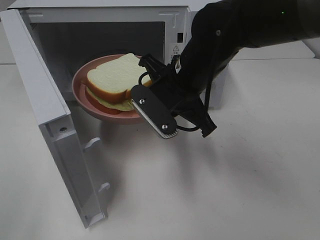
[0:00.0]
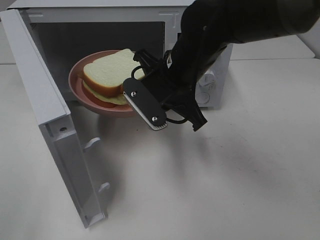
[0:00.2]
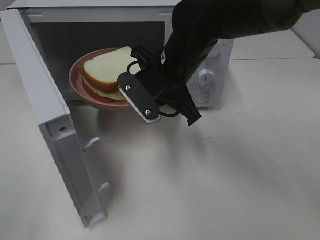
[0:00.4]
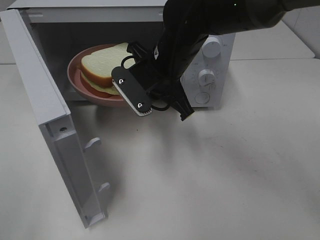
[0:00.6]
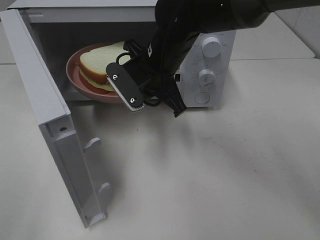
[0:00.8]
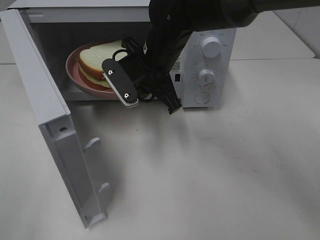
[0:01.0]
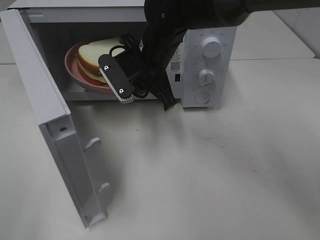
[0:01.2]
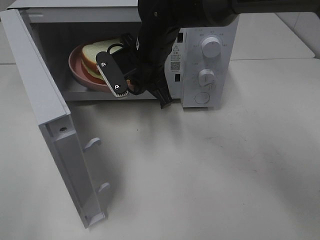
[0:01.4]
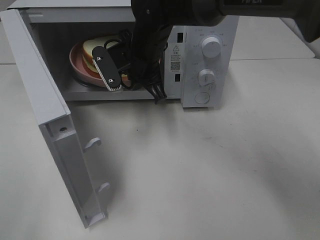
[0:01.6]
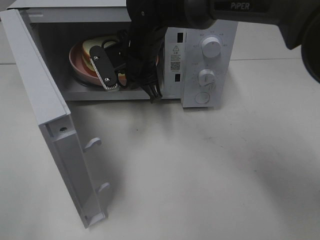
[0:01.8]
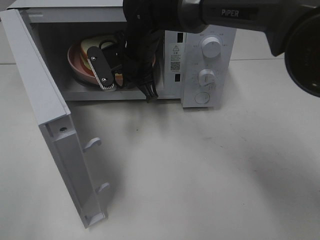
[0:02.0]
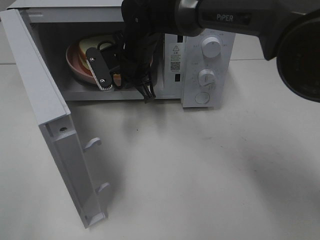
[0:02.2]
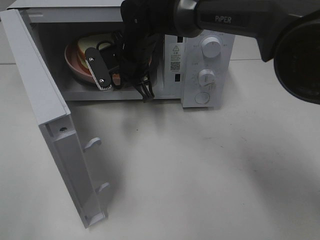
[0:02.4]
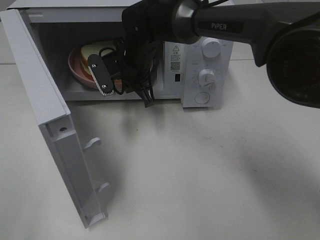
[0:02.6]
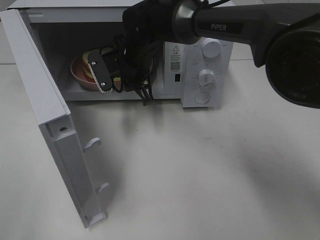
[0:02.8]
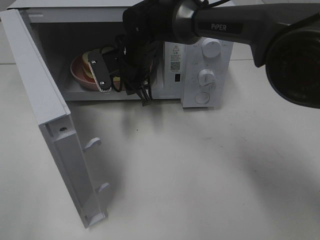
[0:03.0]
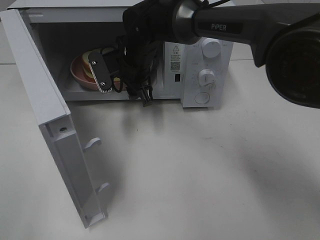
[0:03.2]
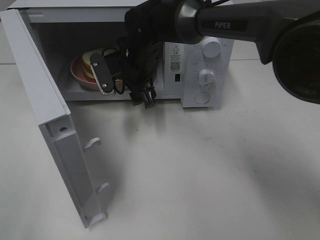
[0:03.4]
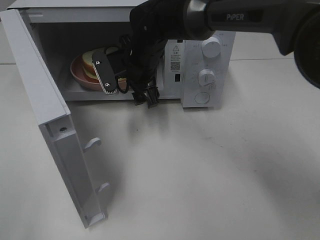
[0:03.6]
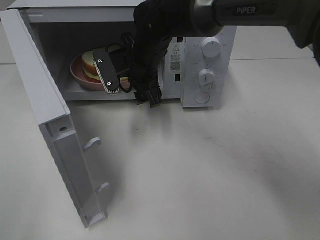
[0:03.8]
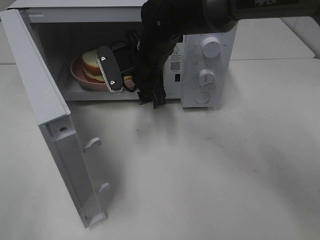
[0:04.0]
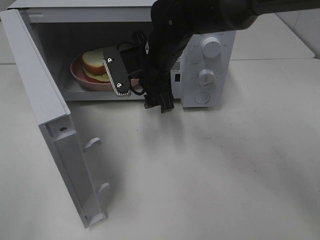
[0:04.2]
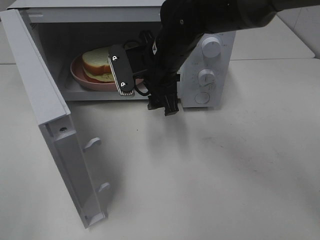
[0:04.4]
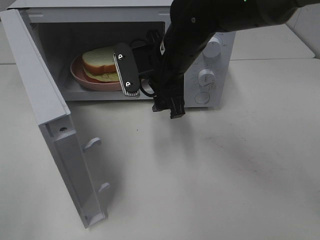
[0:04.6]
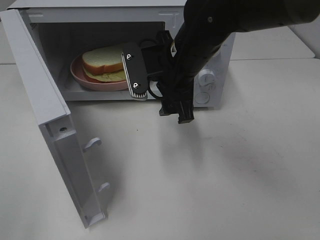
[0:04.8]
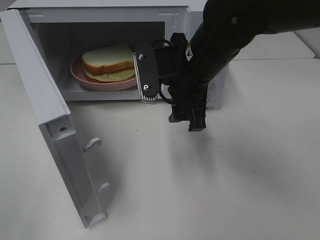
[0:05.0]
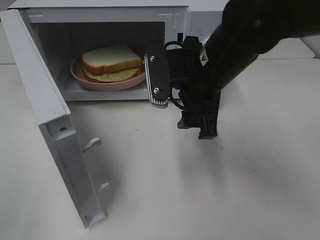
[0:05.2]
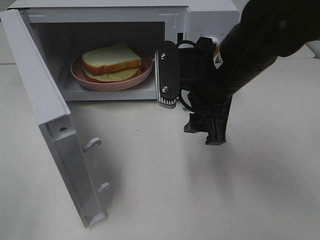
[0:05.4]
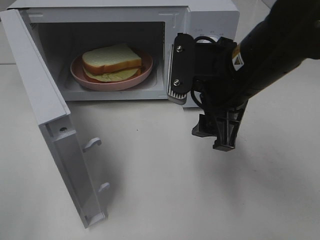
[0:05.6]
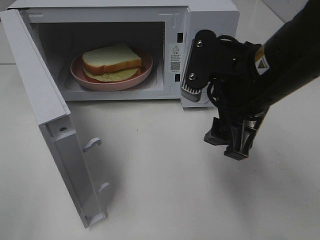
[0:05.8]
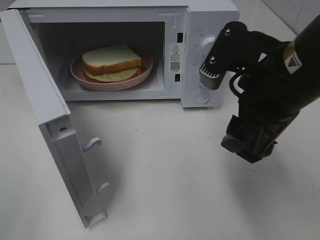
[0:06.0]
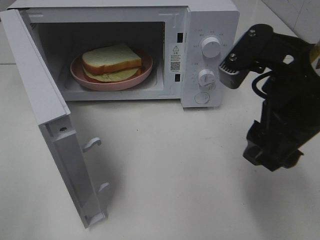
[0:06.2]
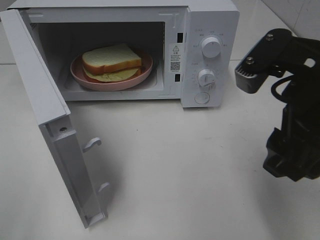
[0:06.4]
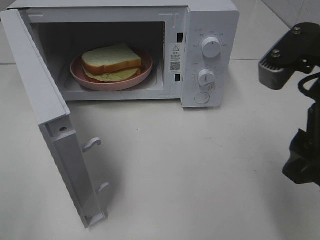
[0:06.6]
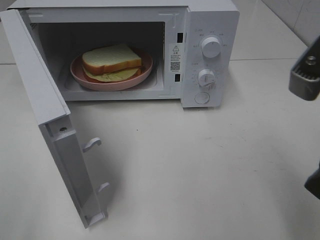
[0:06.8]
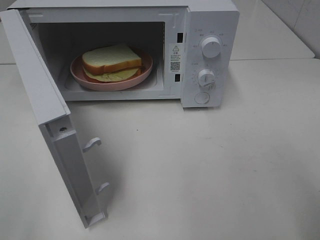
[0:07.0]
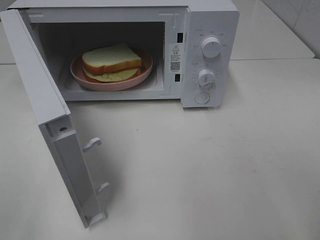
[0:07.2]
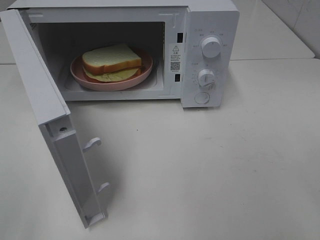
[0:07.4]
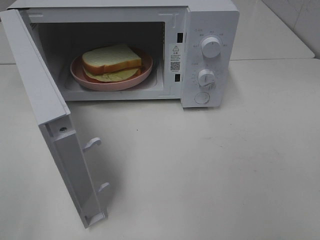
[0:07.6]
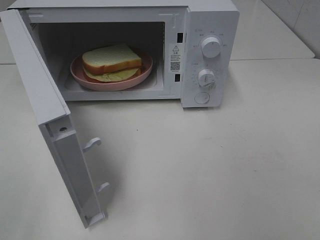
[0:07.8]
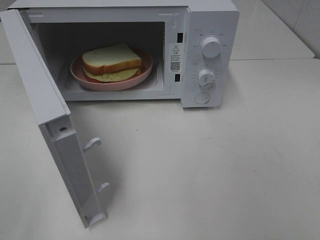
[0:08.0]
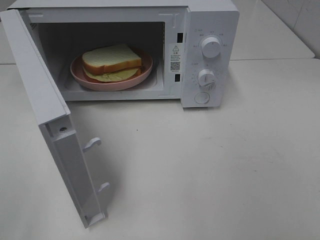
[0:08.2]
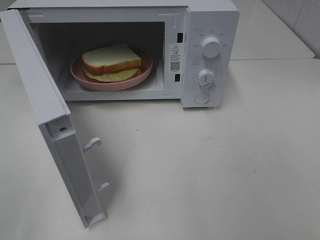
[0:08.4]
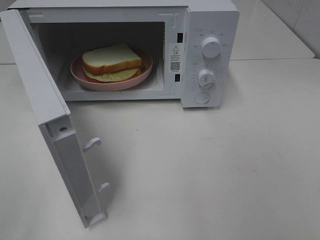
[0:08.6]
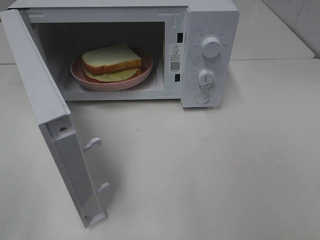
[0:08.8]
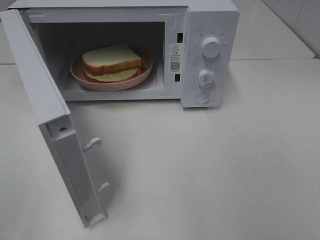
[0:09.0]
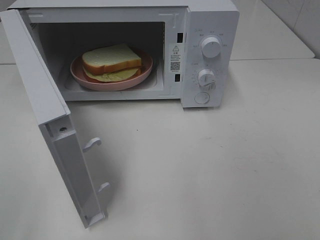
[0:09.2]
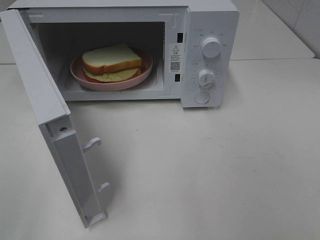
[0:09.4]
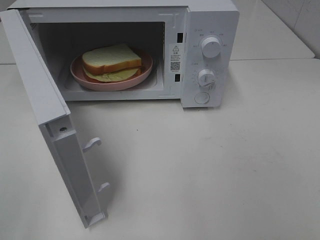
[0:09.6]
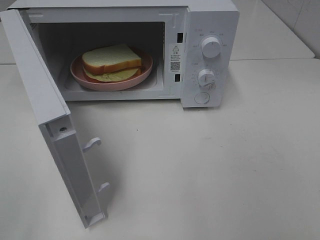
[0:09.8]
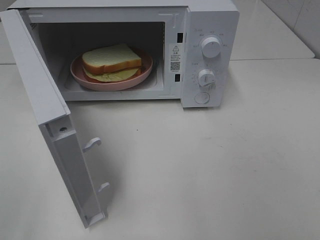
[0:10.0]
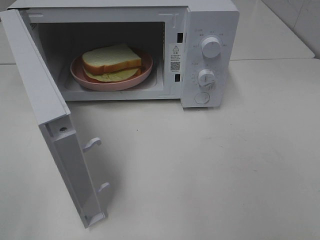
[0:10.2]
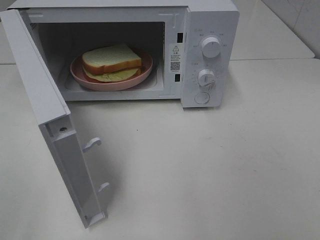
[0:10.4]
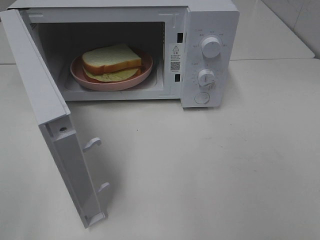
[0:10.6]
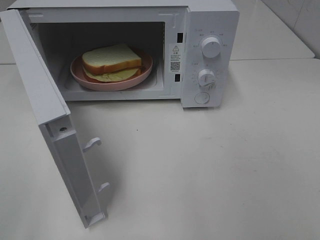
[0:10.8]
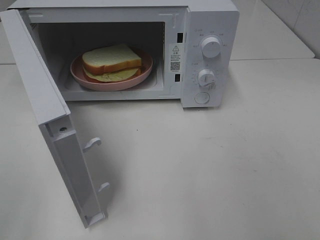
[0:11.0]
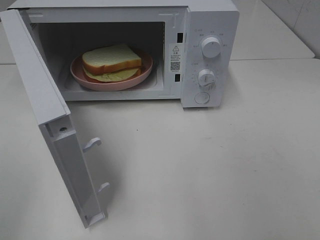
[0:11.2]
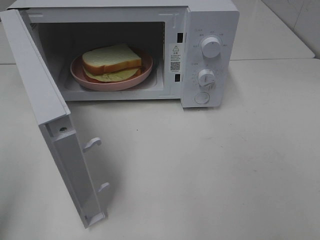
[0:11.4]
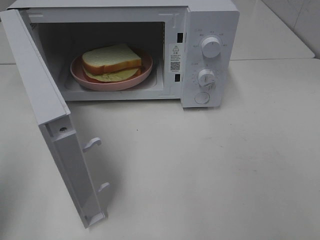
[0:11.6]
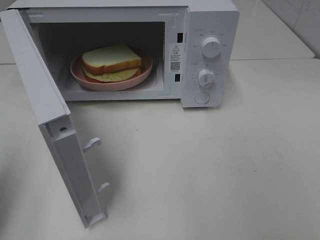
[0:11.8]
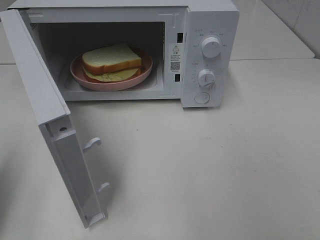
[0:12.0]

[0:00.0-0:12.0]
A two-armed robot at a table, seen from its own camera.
Task of the whole recording: Heat Sandwich.
Step, 0:00.0 to 0:03.8: Right hand: place the plate in the microwave.
0:00.0 to 0:01.6: The right gripper travels forward and to the left by about 10 cm.
0:01.6 to 0:03.0: The right gripper opens.
0:03.0 to 0:04.4: The right gripper travels backward and to the right by about 10 cm, and opens up.
0:04.4 to 0:06.0: The right gripper is displaced backward, to the right and upward by about 20 cm.
0:06.0 to 0:07.6: The right gripper goes approximately 20 cm backward and to the right.
0:09.0 to 0:10.4: Both grippers stay about where they are.
0:10.4 to 0:12.0: The left gripper travels forward by approximately 15 cm, and closes its fingers.

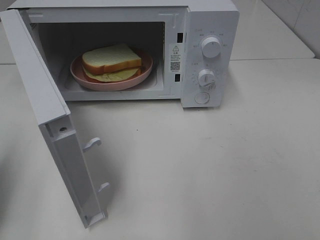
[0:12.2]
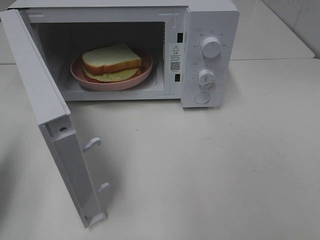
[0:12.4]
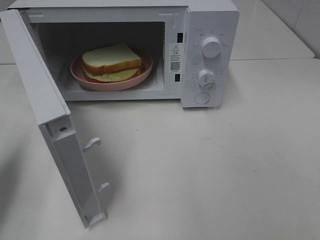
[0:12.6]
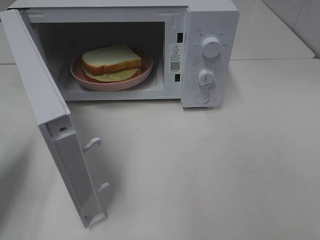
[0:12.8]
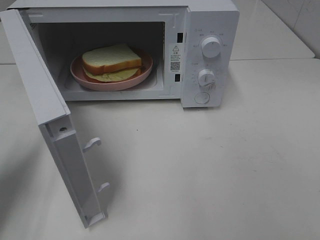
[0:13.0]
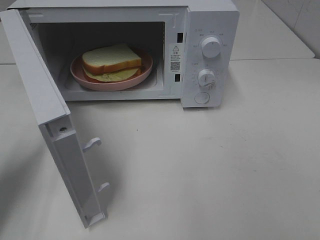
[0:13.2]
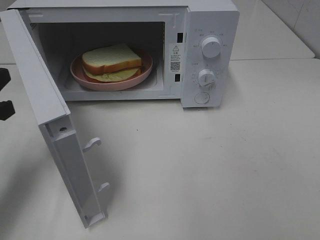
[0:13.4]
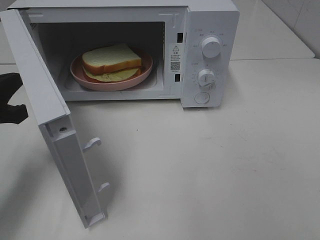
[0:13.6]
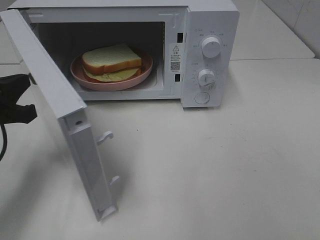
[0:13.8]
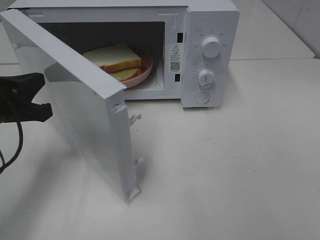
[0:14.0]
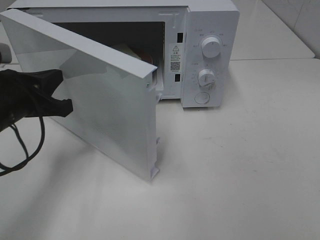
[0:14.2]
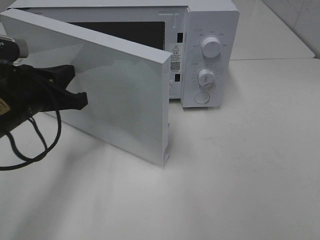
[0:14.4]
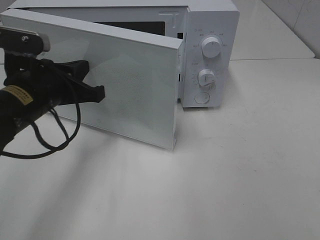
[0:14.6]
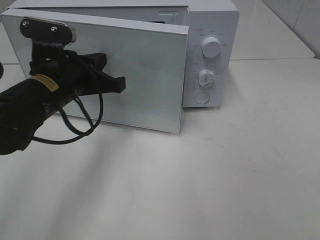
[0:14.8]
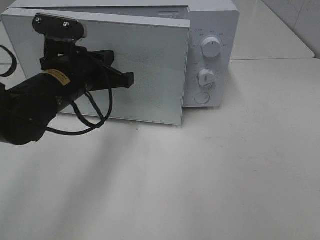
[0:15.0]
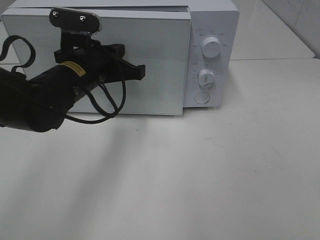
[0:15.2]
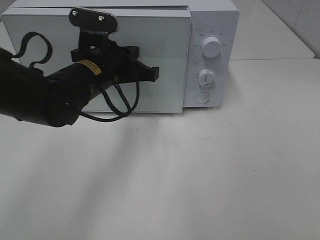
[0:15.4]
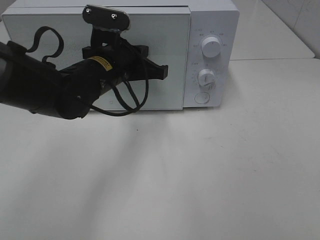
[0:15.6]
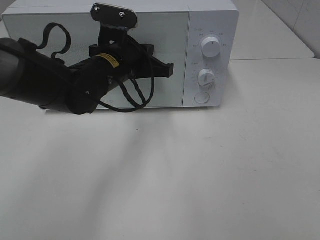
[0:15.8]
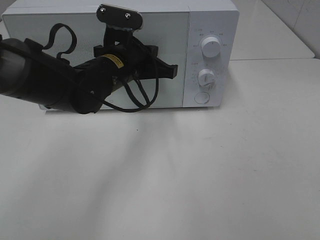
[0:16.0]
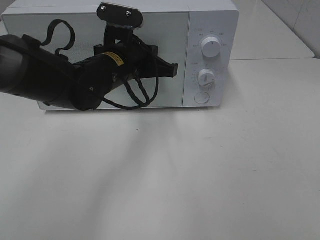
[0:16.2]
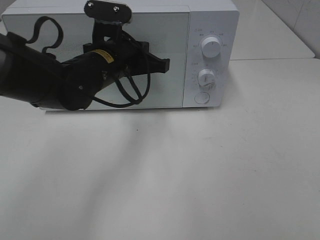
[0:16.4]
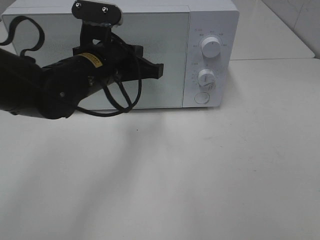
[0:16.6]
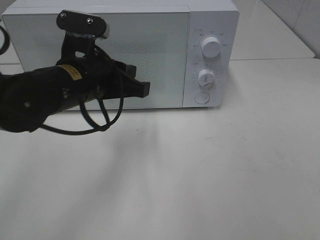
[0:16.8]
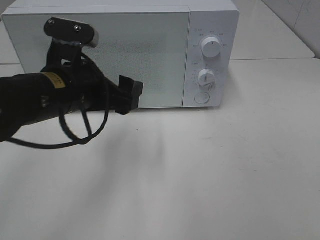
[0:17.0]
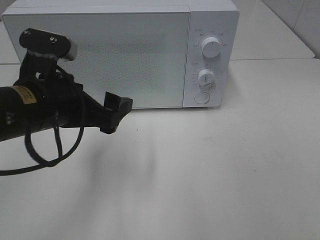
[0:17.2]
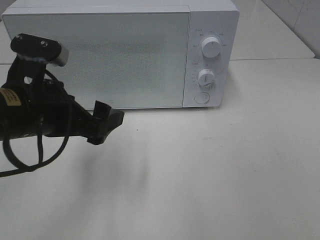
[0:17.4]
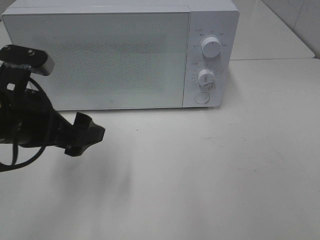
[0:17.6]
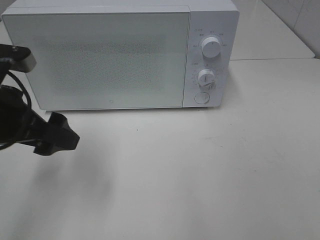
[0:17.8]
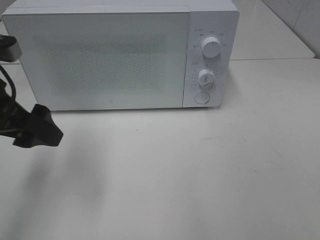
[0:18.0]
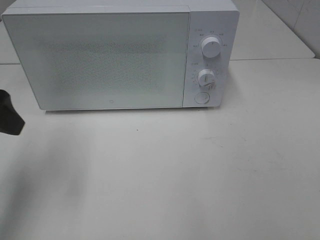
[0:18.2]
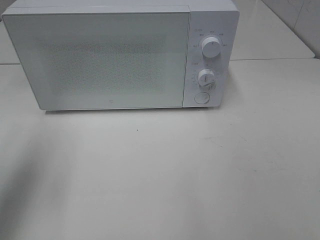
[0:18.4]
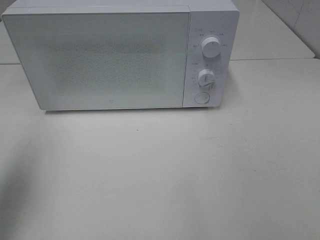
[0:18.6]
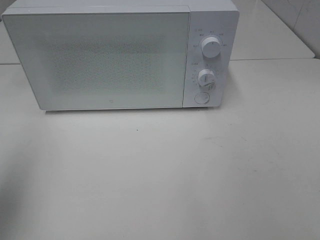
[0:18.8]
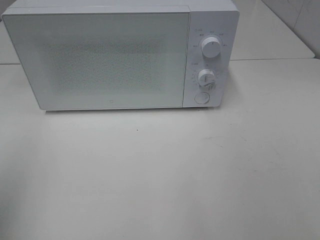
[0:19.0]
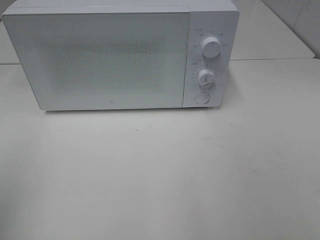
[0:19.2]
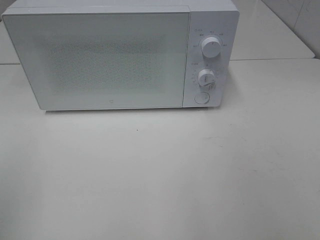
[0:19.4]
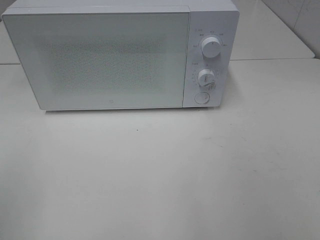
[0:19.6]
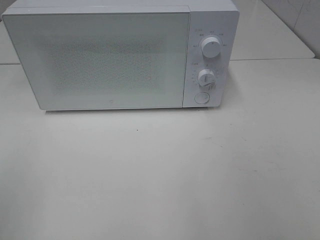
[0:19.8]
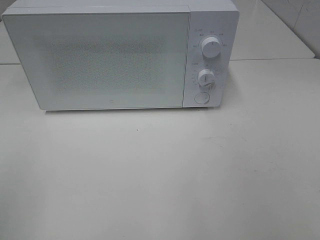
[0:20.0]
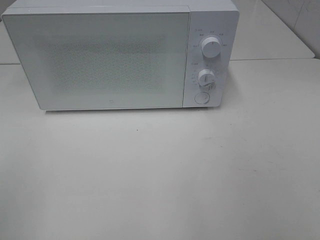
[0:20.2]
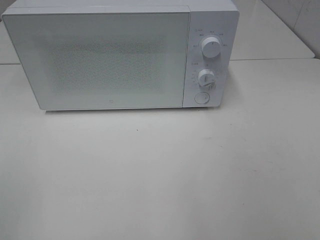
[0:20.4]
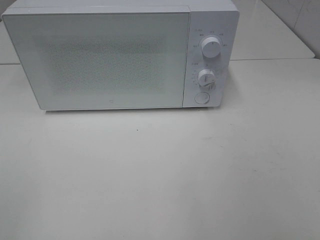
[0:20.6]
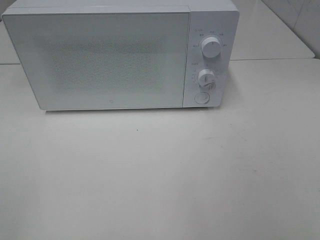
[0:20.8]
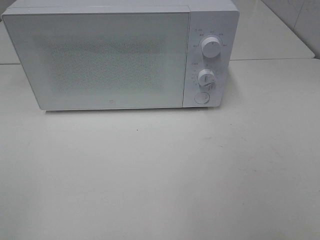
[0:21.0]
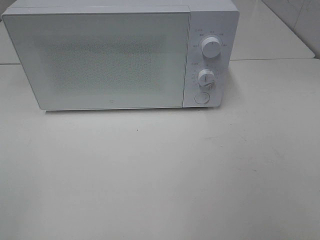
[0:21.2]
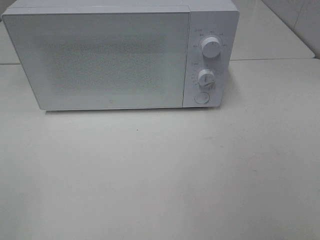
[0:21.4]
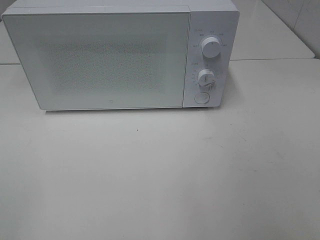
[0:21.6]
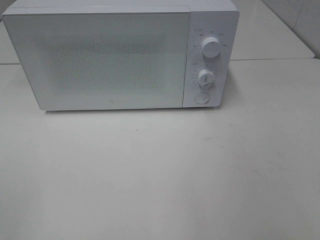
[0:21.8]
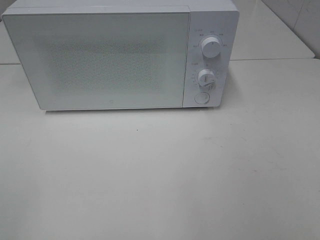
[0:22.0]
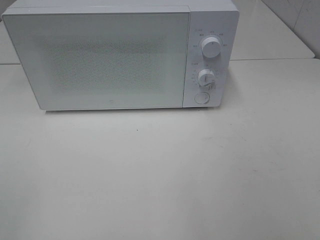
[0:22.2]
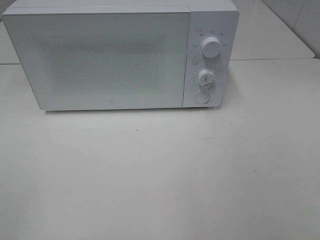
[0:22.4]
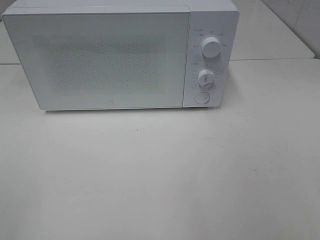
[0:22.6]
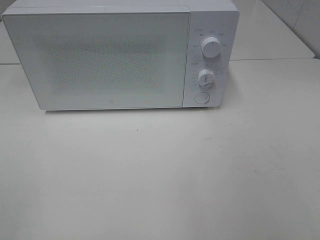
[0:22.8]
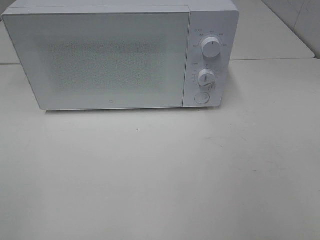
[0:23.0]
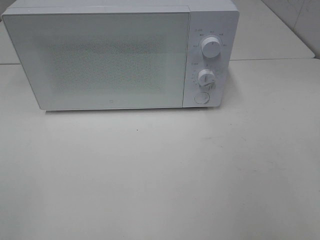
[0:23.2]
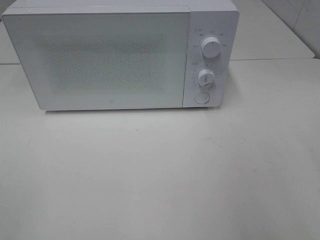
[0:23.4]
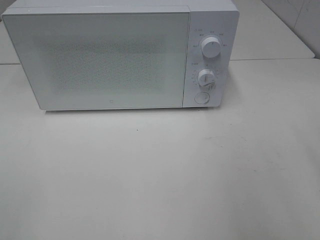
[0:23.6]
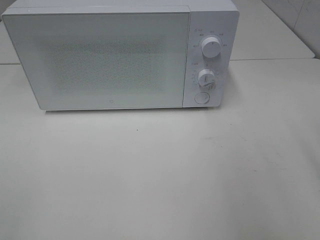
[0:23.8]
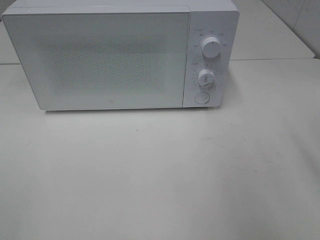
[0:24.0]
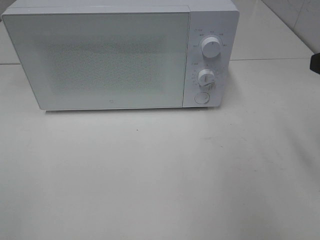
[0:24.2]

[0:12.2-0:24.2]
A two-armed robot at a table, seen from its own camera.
Task of the whole recording: Heat Sandwich.
Step, 0:12.2 to 0:16.4: Left hand: close the microwave door.
0:12.2 to 0:13.8: The left gripper is displaced forward, to the right and downward by about 15 cm.
0:13.8 to 0:15.2: The left gripper moves to the right and forward, roughly 15 cm.
0:15.2 to 0:16.6: The grippers stay close to where they were, moving slightly.
0:16.6 to 0:18.2: The left gripper moves to the left, backward and upward, approximately 20 cm, and opens its fingers.
0:18.2 to 0:19.8: The left gripper heads backward, covering about 15 cm.
0:21.2 to 0:22.6: The two grippers keep their place.
